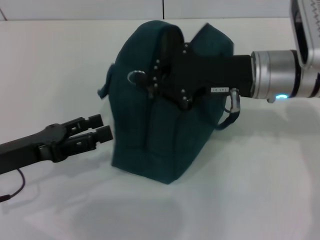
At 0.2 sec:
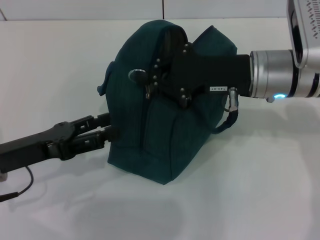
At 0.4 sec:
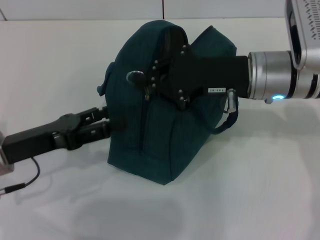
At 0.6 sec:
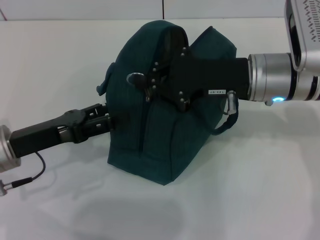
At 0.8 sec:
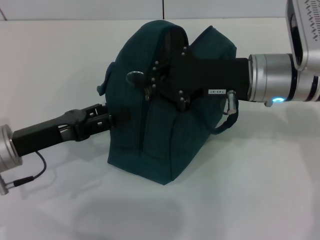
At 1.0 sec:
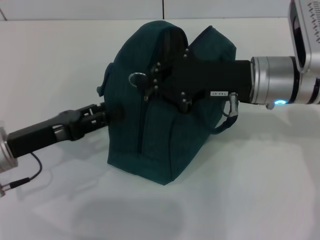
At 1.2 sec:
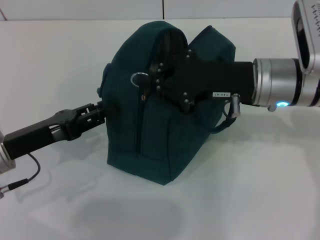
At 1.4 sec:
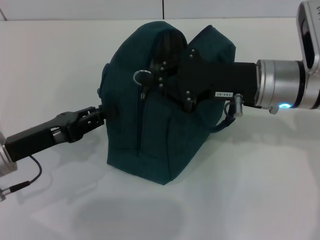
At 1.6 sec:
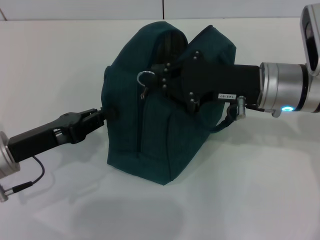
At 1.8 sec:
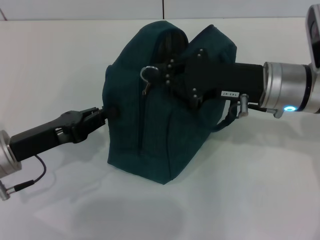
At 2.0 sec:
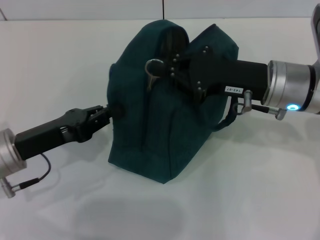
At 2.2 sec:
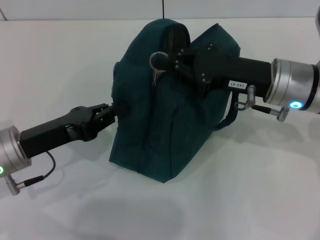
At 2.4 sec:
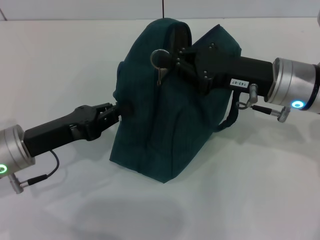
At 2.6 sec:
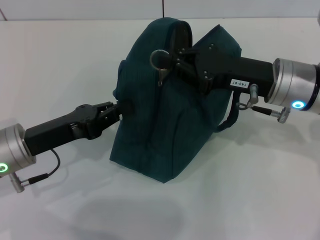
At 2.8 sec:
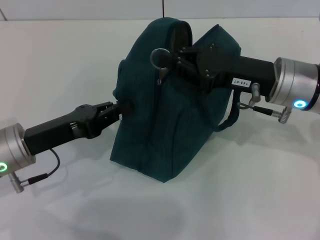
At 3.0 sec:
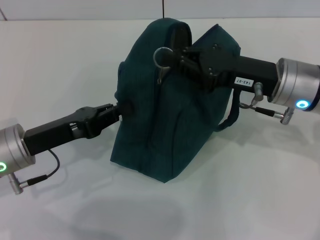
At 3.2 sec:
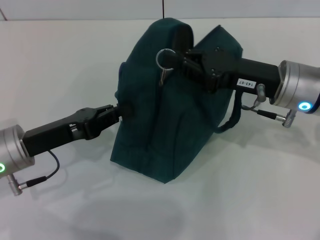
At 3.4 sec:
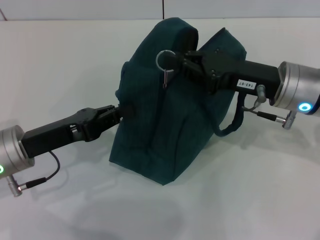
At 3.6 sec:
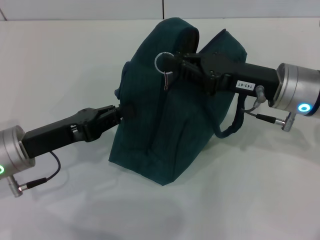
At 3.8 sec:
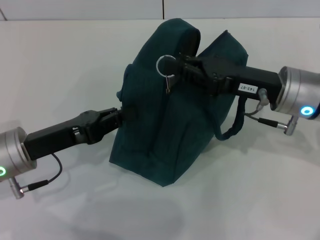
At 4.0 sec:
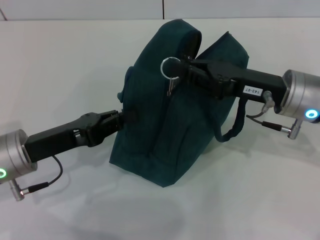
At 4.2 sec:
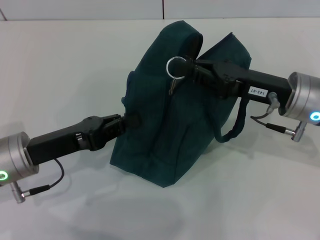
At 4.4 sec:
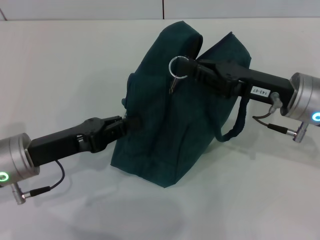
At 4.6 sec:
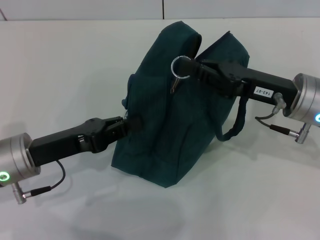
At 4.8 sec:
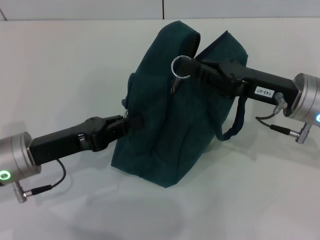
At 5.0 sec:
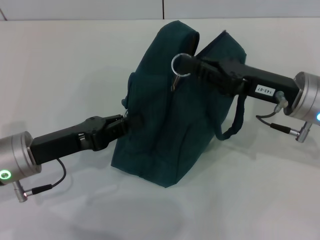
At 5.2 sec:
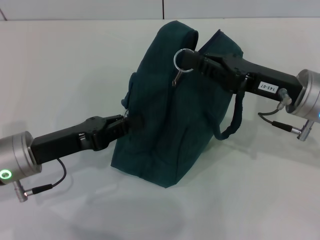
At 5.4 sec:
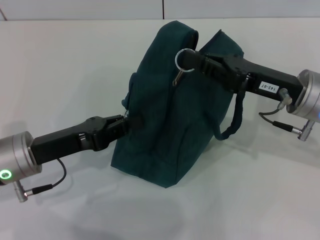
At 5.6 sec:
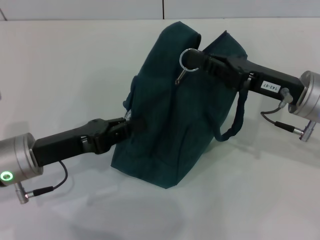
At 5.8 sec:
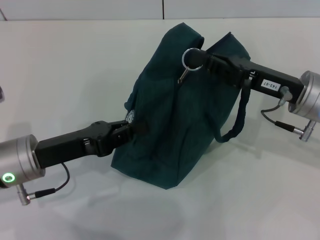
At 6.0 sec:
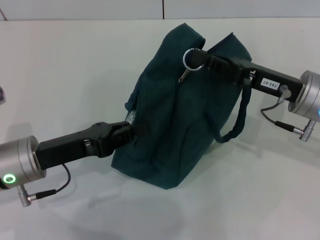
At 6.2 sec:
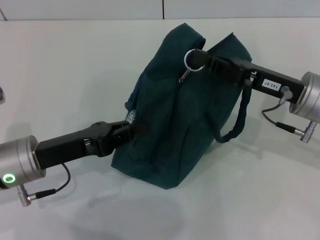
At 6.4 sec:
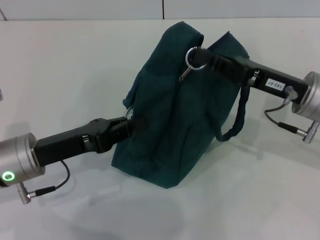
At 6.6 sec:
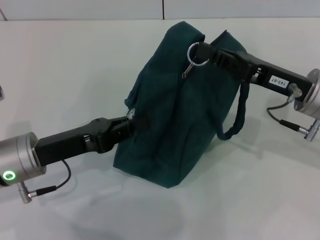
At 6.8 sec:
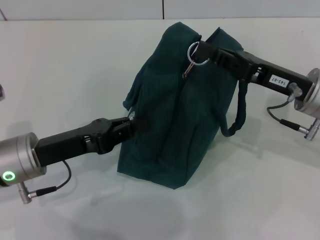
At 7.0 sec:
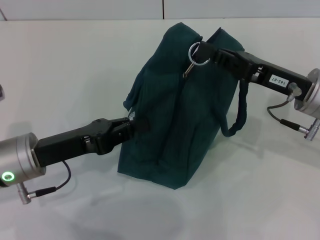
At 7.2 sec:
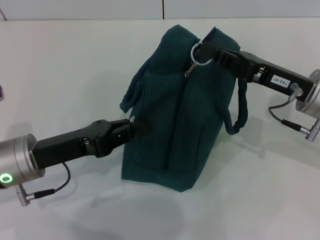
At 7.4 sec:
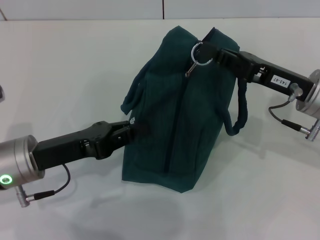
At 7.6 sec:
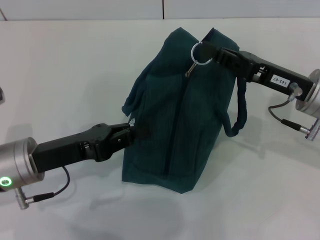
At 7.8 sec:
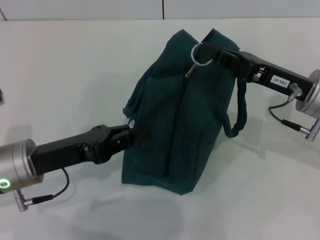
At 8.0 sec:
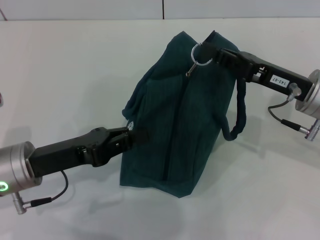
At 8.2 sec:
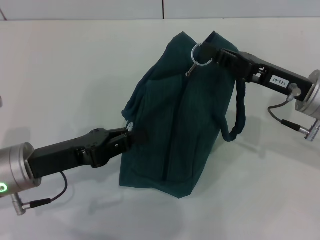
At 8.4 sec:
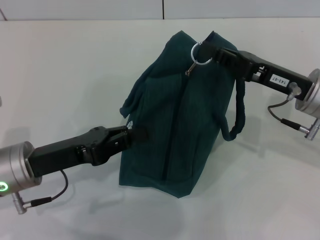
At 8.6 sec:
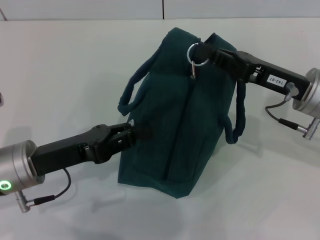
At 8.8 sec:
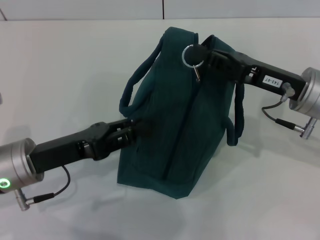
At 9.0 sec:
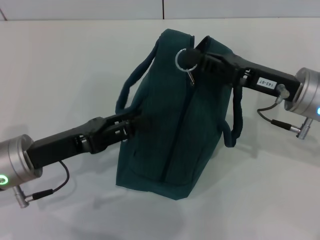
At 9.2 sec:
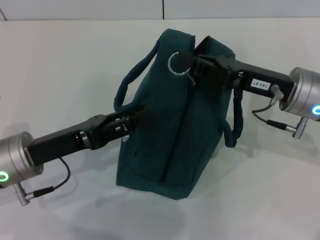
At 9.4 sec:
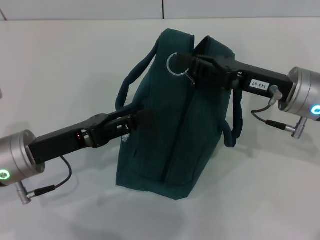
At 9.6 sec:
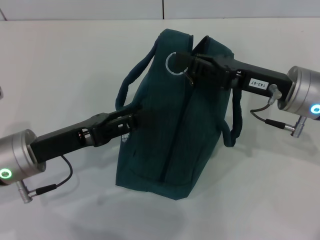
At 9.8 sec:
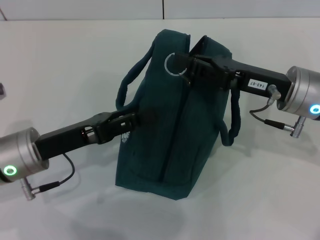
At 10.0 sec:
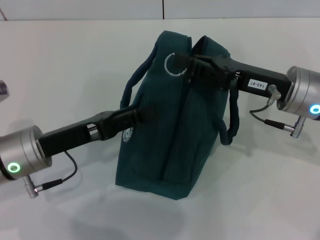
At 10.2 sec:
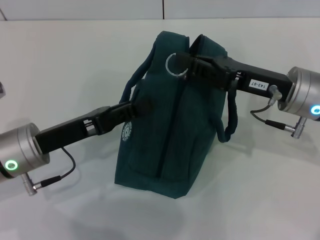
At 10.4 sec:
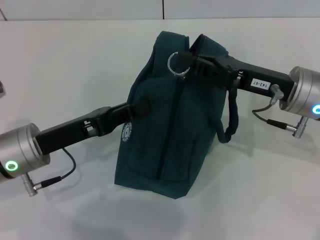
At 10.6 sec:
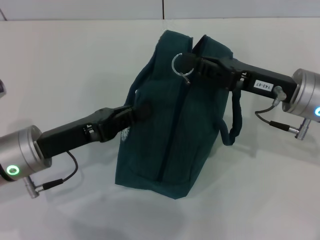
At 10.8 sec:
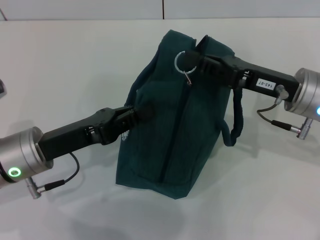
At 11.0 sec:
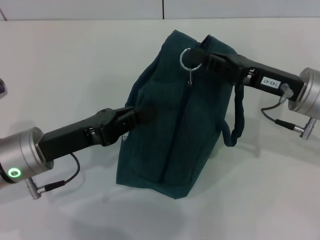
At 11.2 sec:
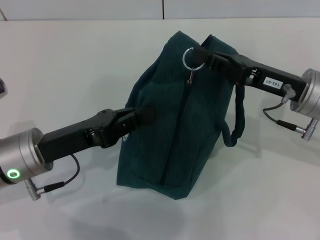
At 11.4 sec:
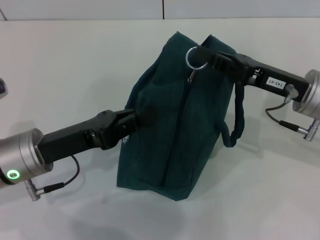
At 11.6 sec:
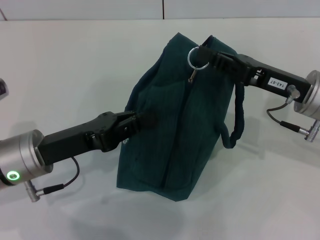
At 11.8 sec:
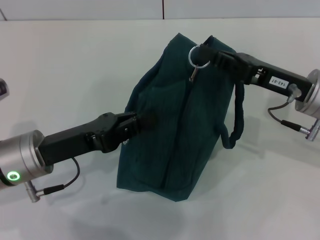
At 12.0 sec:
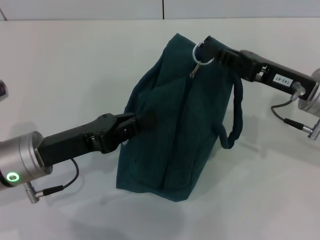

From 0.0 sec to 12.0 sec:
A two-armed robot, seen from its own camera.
From 0.0 sec to 1.6 sec: The left gripper closes.
From 3.0 sec to 6.0 sec: The grippers stay close to where they were, moving slightly.
From 6.0 sec to 7.6 sec: The two grippers keep their place.
From 7.6 sec to 9.0 sec: The left gripper opens its fingers.
From 9.0 sec to 12.0 sec: There are only small adjustments of the grippers.

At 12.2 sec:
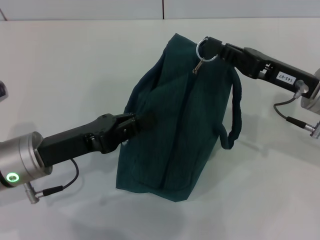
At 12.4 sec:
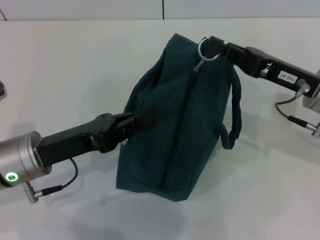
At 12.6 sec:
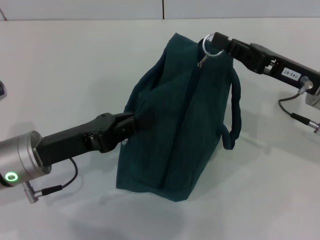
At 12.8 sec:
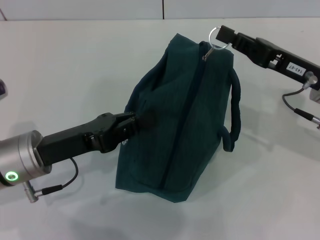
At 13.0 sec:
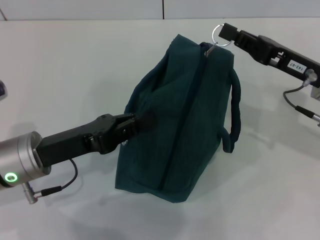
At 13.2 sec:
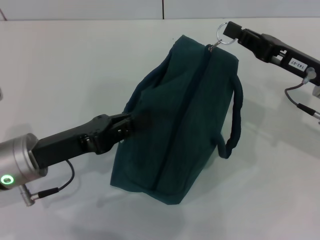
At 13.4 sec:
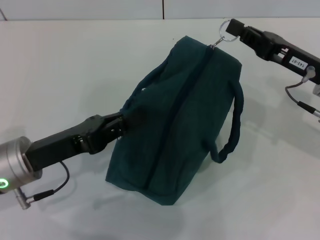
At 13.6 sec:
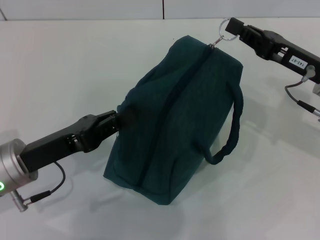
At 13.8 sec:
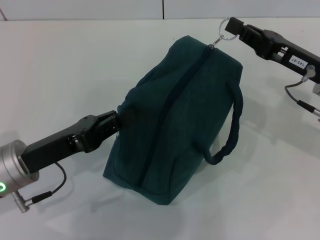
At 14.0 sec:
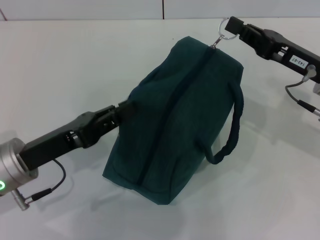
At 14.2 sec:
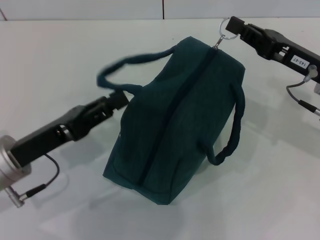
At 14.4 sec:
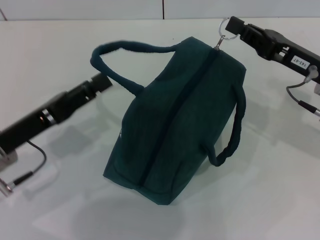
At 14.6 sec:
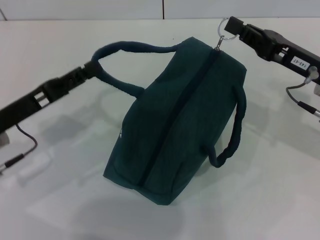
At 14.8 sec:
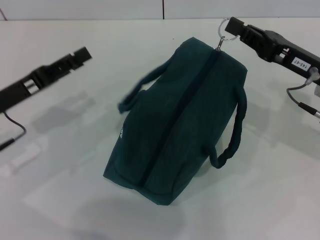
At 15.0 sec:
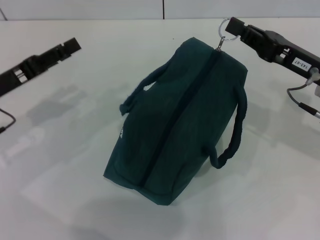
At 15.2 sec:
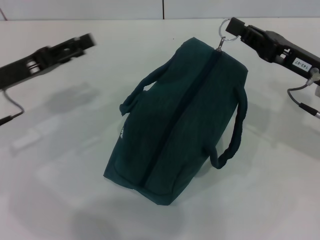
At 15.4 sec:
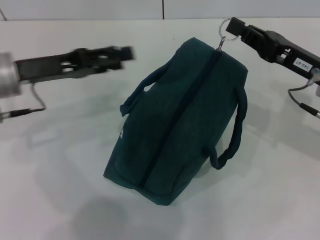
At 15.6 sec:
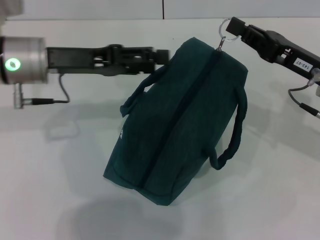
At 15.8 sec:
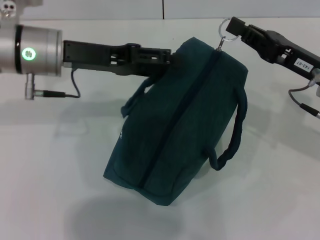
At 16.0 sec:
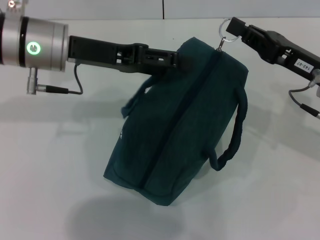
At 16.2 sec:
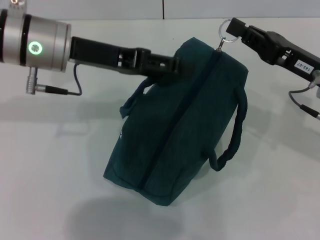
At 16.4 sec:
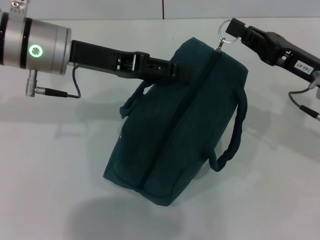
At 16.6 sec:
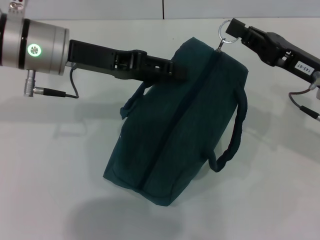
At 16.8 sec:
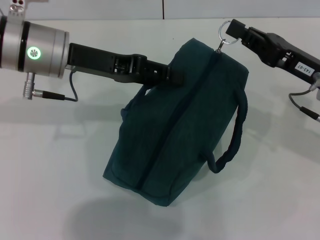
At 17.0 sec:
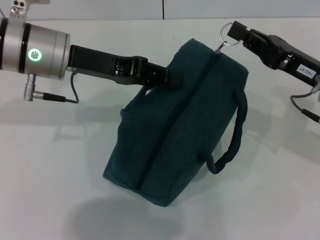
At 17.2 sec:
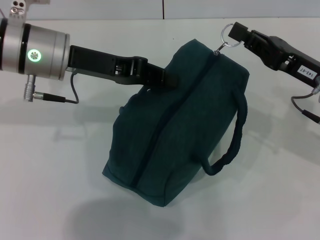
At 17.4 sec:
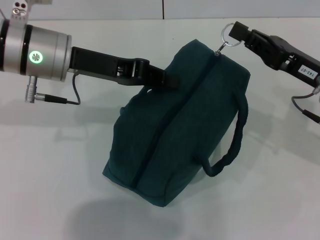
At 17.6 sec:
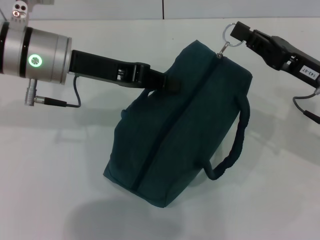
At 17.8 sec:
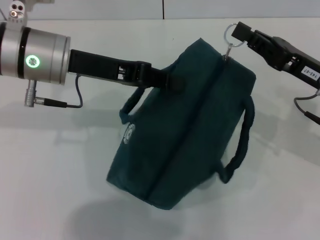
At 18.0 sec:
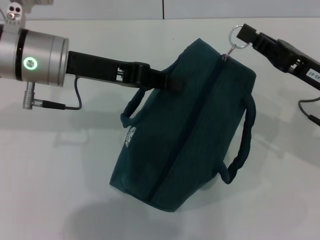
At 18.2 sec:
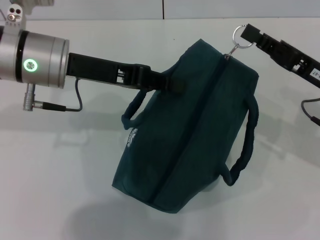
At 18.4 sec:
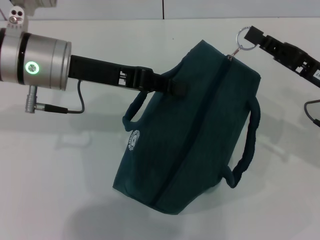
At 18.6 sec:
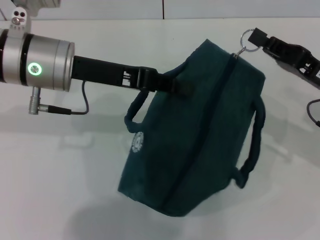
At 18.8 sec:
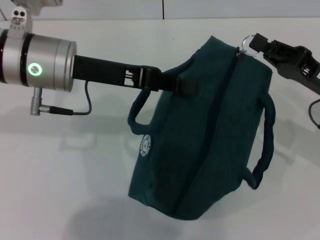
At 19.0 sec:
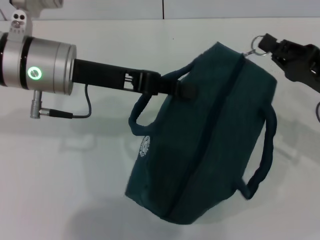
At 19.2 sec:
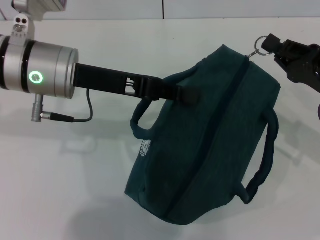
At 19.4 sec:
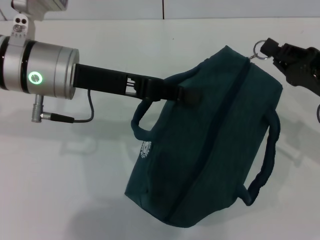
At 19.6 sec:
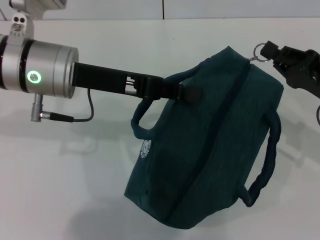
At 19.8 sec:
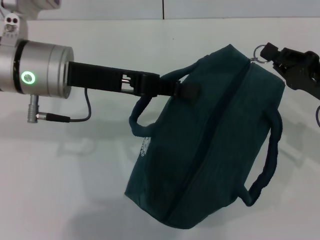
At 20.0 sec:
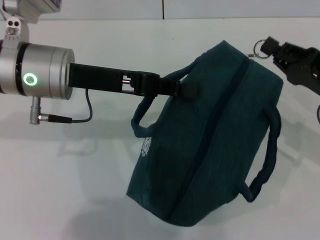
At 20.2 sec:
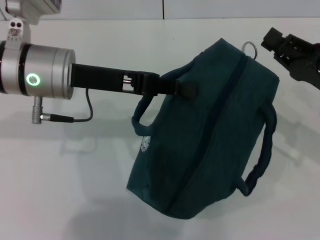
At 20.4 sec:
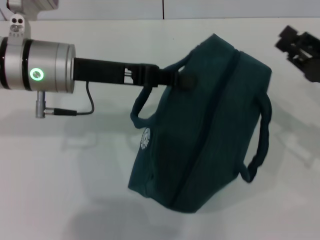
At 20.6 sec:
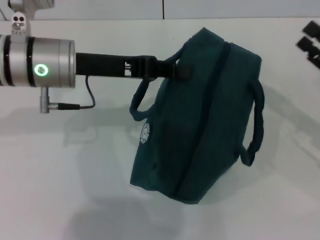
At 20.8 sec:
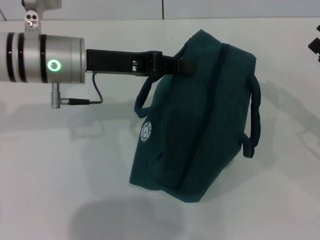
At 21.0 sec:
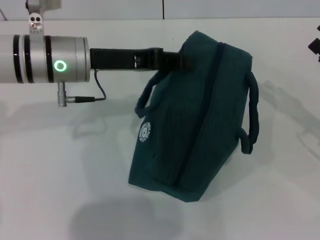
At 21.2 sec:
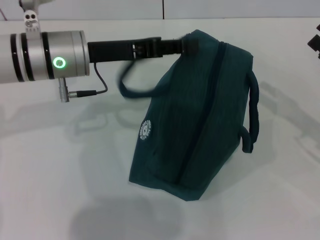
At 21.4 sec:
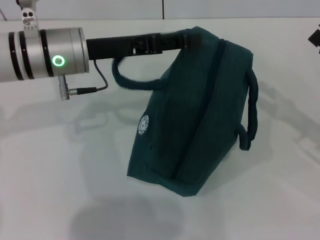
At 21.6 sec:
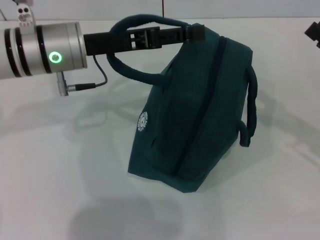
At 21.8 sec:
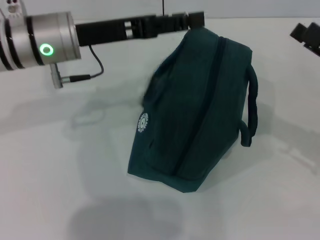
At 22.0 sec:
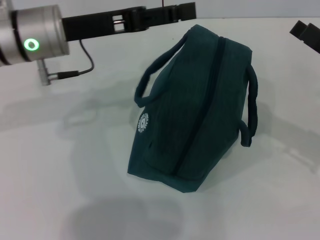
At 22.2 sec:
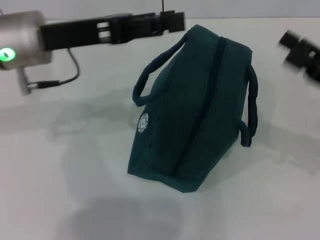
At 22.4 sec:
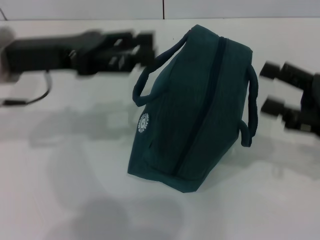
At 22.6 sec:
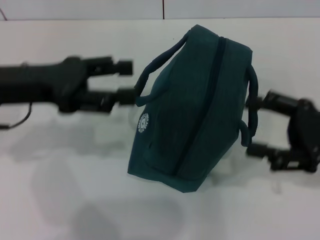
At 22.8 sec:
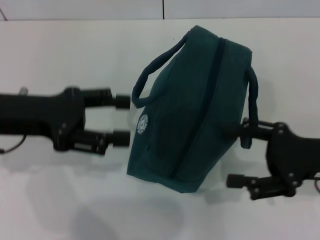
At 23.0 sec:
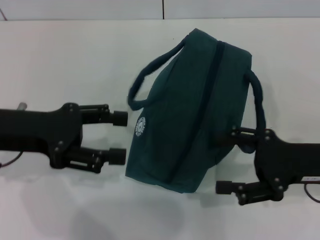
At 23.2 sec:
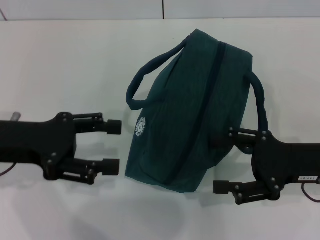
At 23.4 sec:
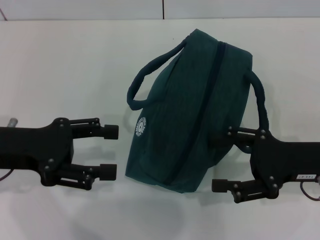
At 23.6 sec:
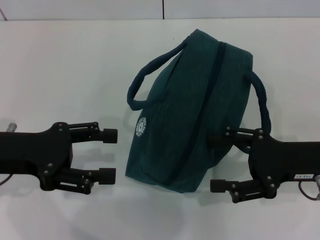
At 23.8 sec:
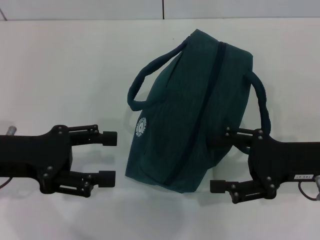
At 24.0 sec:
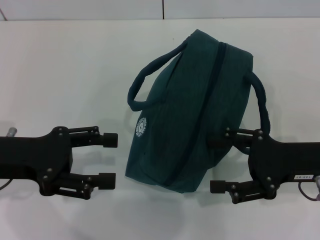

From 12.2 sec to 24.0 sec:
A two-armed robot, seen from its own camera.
Step, from 12.2 sec to 20.2 sec: Zip up the lunch bag with your right hand.
Step, from 20.4 sec to 21.6 sec: Hold the lunch bag with your left hand.
From 12.2 sec to 13.6 sec: The grippers make only small movements.
From 13.6 sec to 15.2 sec: The left gripper travels forward and to the left by some 10 cm, and opens.
From 15.2 sec to 16.6 sec: The left gripper shifts about 15 cm to the right and upward.
From 16.6 sec to 18.2 sec: The left gripper closes.
From 19.6 sec to 21.0 sec: The right gripper travels to the right by approximately 5 cm, and opens its fingers.
From 21.0 sec to 22.6 sec: The right gripper changes place by roughly 5 cm; the left gripper heads to the left and backward, covering some 10 cm, and opens up.
From 22.6 sec to 24.0 sec: The left gripper travels backward by some 5 cm.
